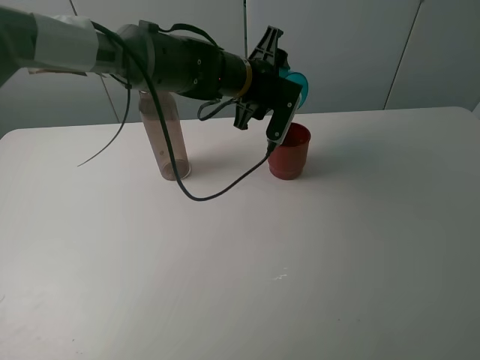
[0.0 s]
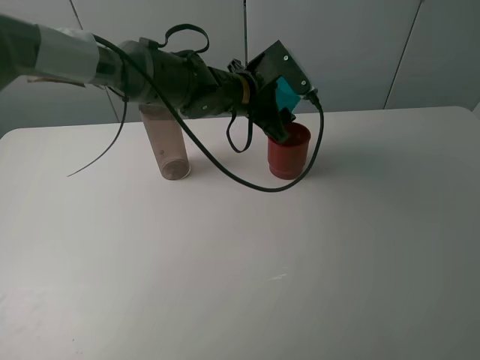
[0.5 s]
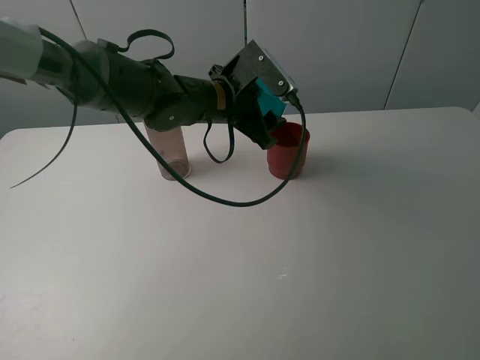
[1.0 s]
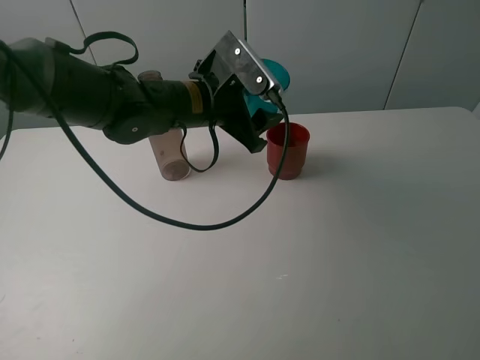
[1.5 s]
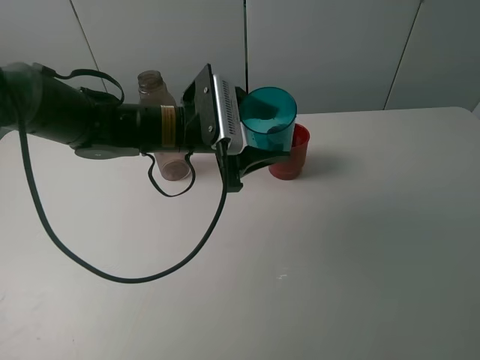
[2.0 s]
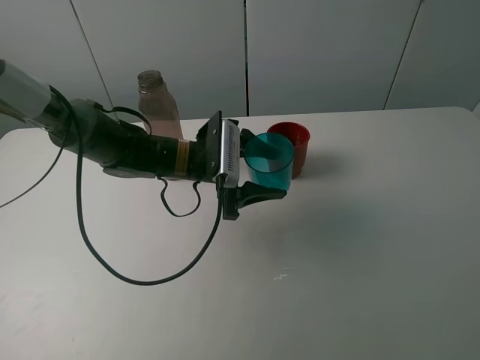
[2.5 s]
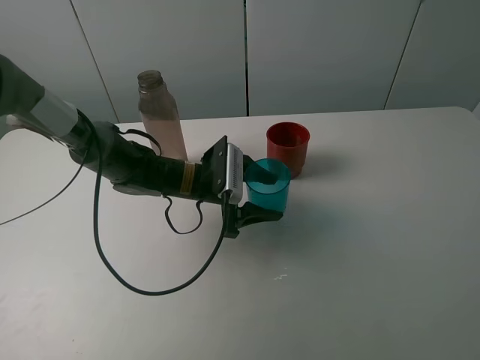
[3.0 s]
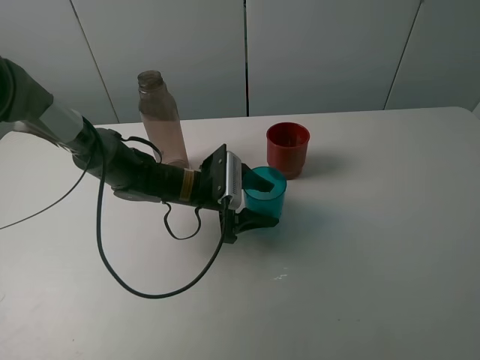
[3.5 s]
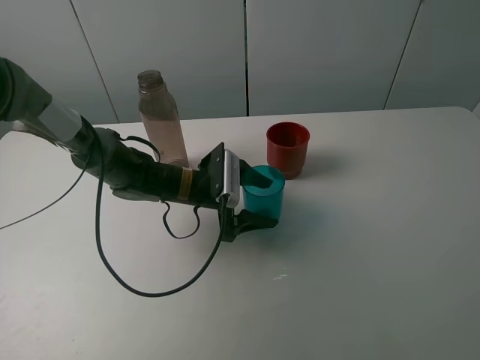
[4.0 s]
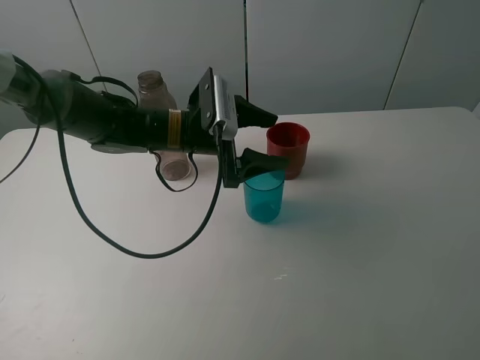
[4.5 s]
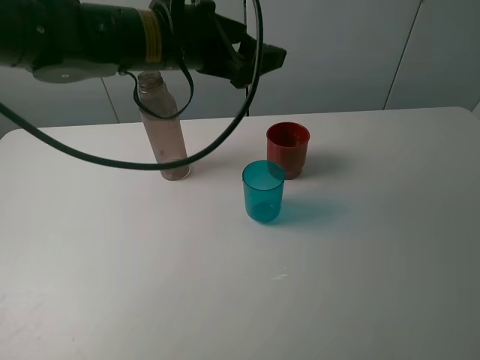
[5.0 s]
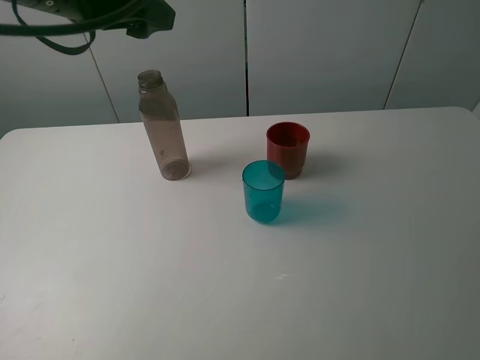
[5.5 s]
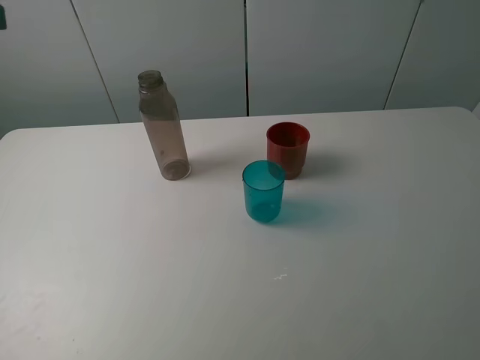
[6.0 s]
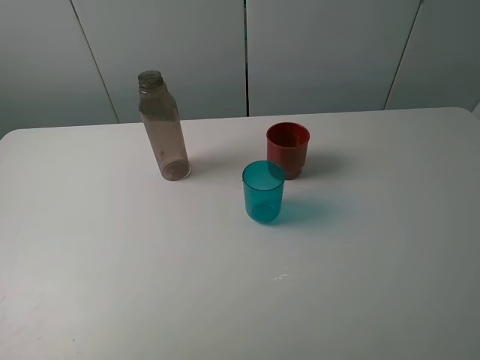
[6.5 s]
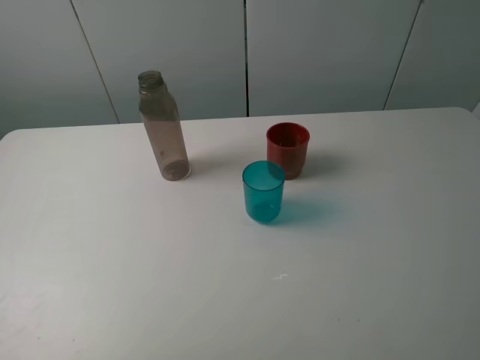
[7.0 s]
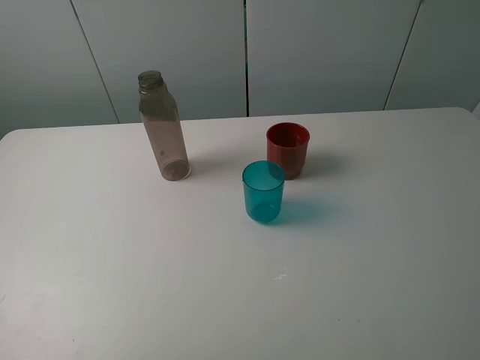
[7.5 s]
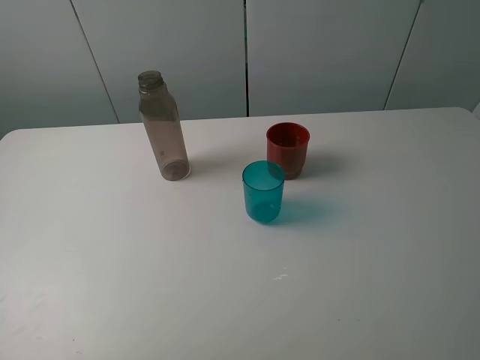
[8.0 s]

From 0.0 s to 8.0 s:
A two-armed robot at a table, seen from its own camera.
Task of the whole recording: pick up the bottle and pour water into the cup, then pick up the cup containing water and pour it into another cup.
Step, from 0.0 s to 4.0 s: Place the blue cup with the left gripper.
From 0.0 s to 2.0 s: The left gripper travels backward and to the left by approximately 15 cm.
From 2.0 s to 4.0 s: The left gripper heads downward, covering some 10 cm, and opens its fingers.
From 4.0 s to 6.0 s: The left gripper shifts roughly 40 cm upward, to the left and backward.
